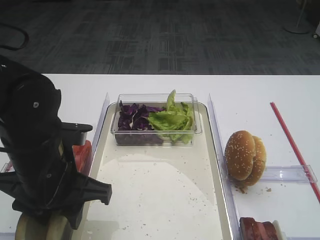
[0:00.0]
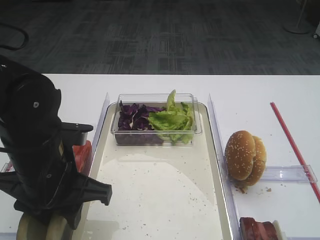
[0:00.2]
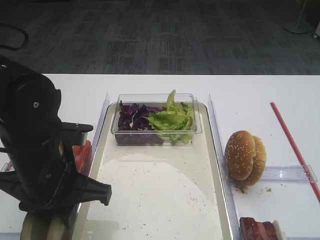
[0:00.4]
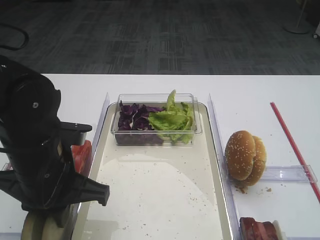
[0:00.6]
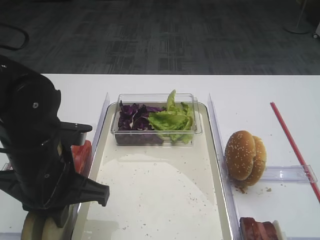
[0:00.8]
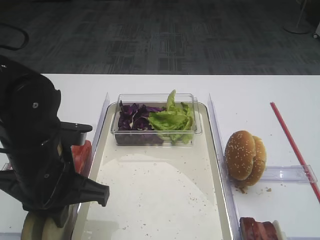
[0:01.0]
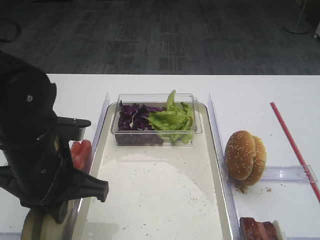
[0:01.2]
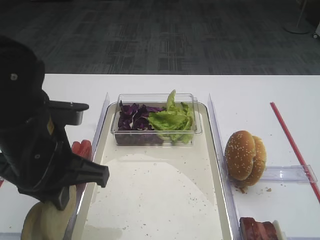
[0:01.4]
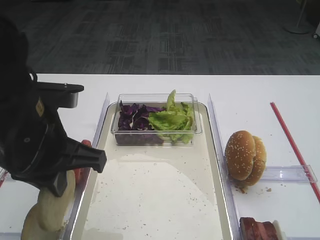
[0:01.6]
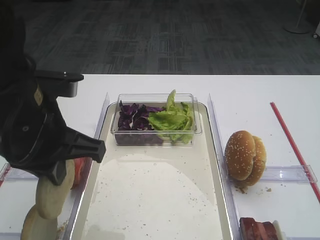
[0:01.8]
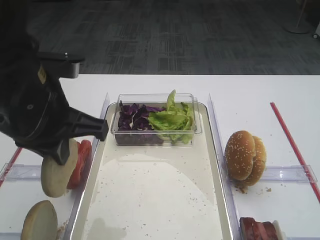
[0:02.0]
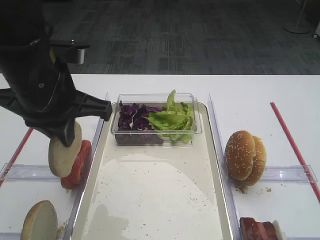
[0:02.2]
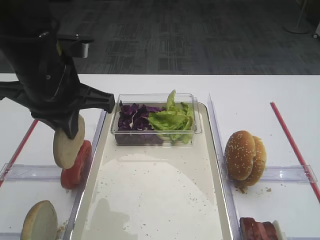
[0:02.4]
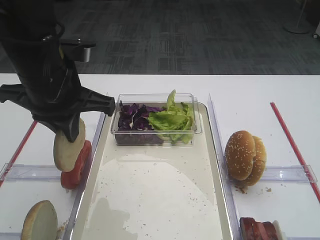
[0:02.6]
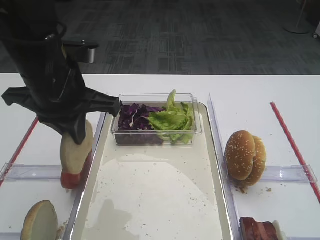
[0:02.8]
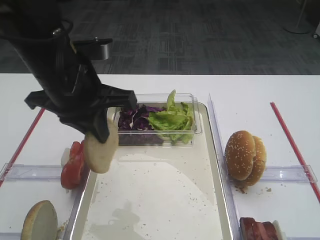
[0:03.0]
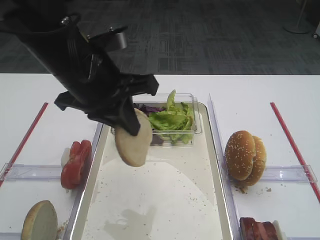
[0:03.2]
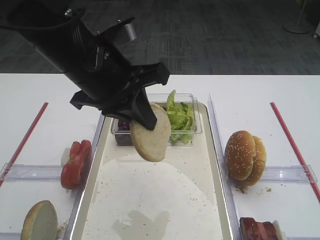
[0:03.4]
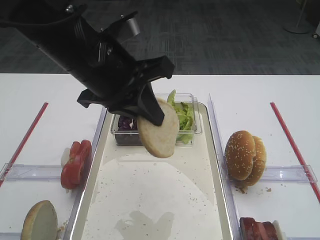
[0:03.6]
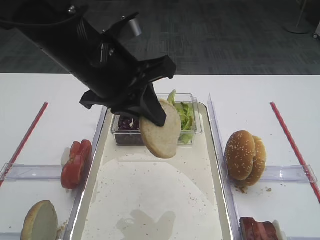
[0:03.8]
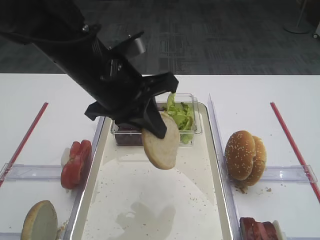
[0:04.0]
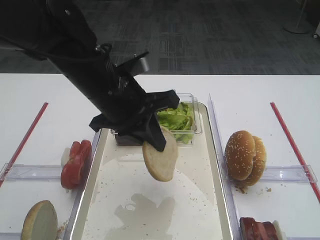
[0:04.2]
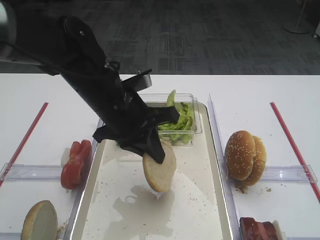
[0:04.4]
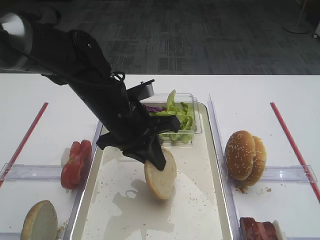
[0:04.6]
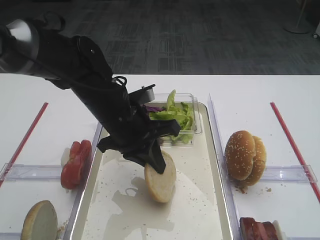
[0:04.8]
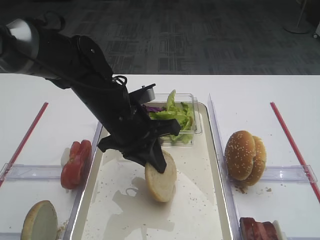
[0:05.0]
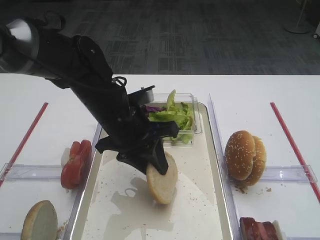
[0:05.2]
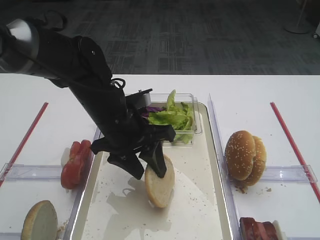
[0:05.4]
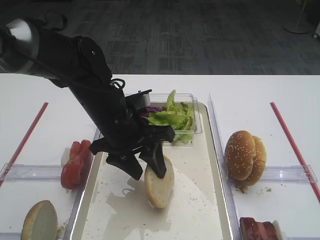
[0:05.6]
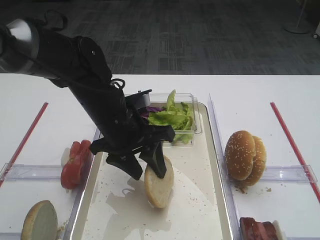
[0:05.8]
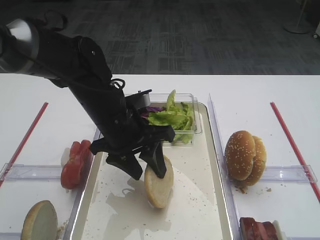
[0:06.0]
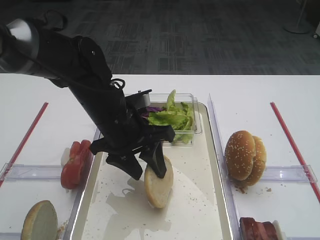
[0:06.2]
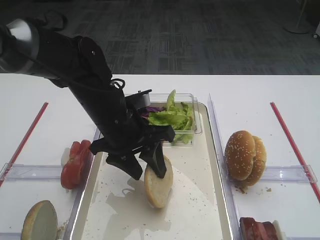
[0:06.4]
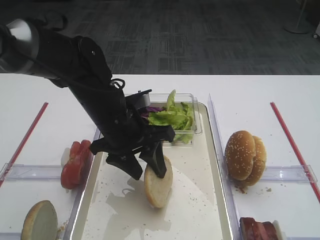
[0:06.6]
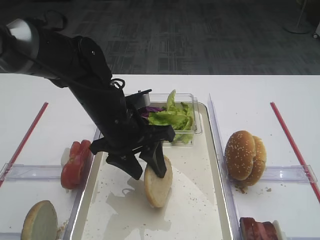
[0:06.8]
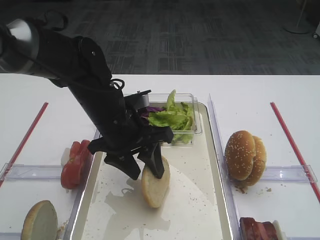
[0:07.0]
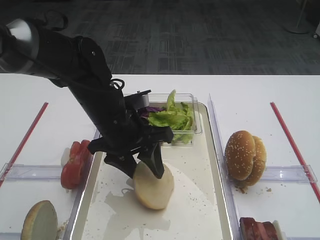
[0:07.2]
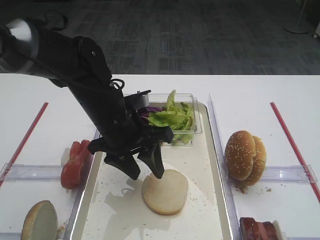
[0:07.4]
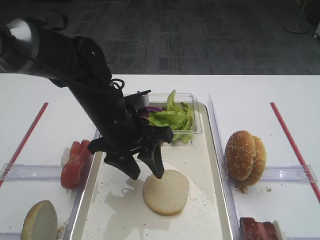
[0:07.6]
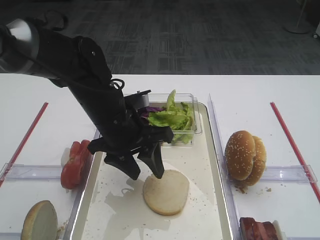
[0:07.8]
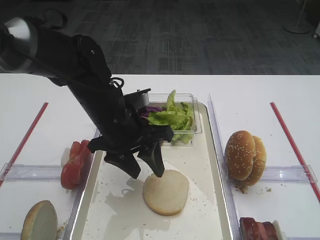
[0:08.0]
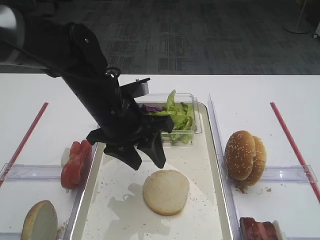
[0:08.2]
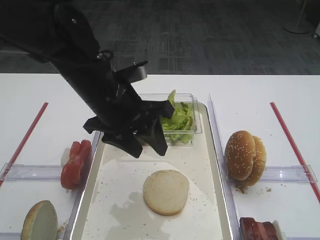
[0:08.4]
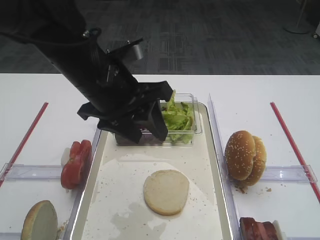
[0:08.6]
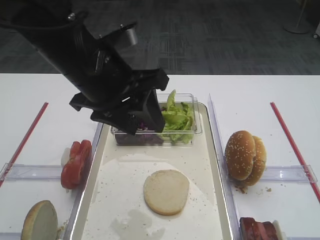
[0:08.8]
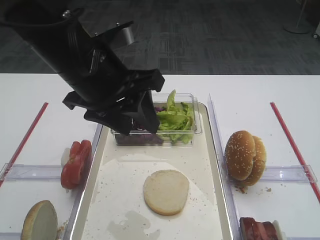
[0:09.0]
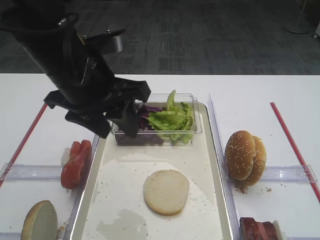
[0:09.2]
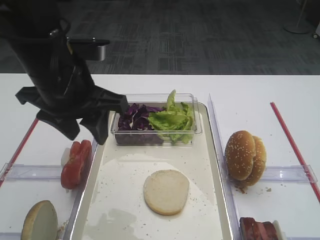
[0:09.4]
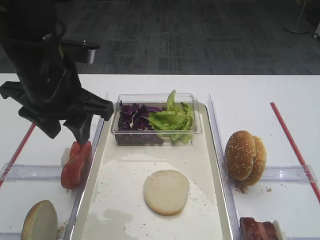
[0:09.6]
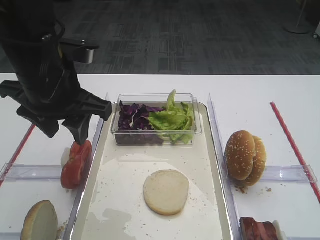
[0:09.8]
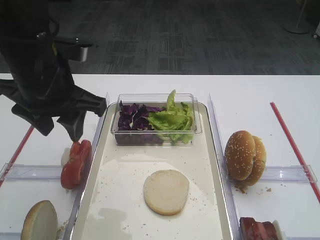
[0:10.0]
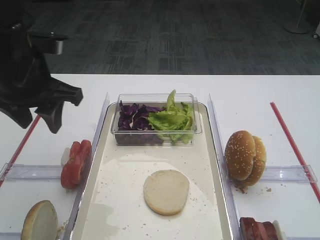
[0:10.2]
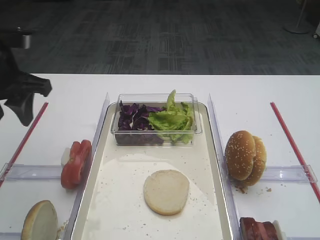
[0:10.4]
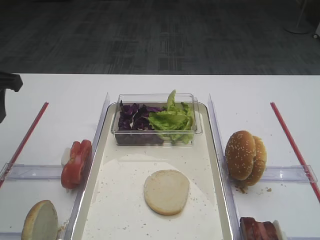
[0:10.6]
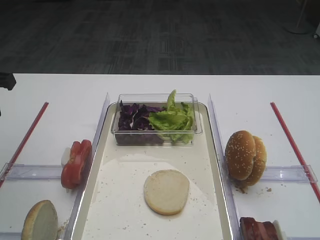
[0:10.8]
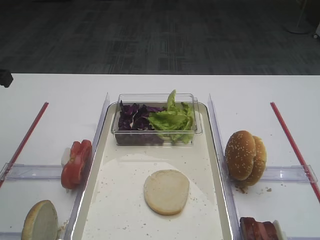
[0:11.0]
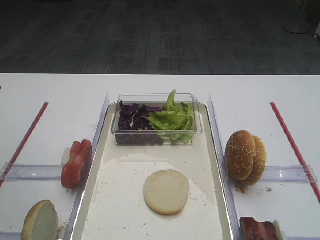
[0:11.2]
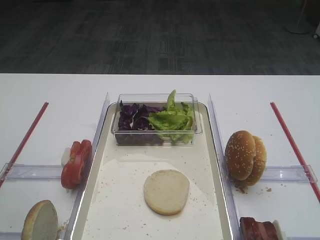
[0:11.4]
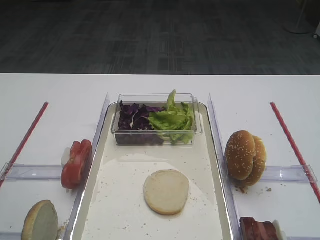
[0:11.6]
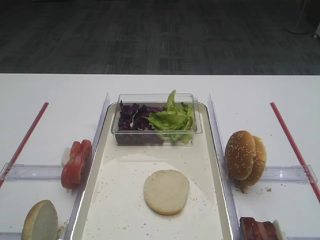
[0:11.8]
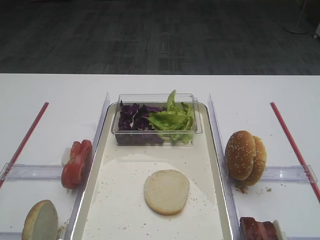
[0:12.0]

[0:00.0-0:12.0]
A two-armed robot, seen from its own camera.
Step, 0:01.8 to 0:07.8: Place the bread slice on the tray with the left gripper.
0:00.0 to 0:01.6: The left gripper goes about 5 cm upward, and closes up.
0:01.6 to 0:03.0: The left gripper travels forward by approximately 5 cm.
0:03.0 to 0:04.4: The left gripper goes approximately 10 cm downward and to the right.
0:04.4 to 0:06.0: The left gripper opens up.
0:06.0 to 0:07.6: Both grippers stay put.
0:07.6 to 0:09.0: The left gripper goes some 10 cm upward.
0:09.0 to 0:10.4: The left gripper travels to the left by some 15 cm.
0:10.4 to 0:12.0: The left gripper goes about 20 cm backward.

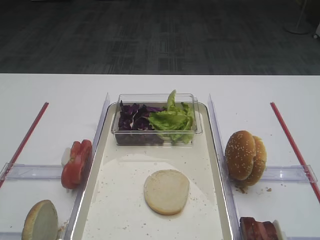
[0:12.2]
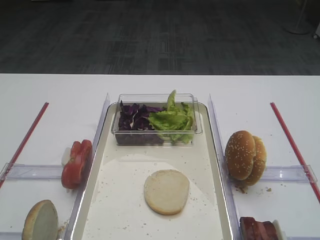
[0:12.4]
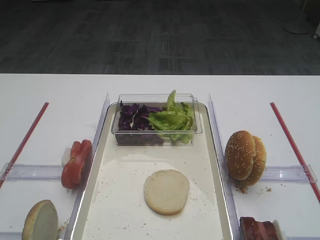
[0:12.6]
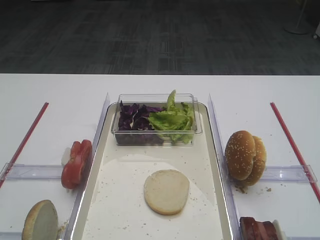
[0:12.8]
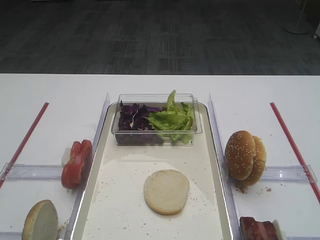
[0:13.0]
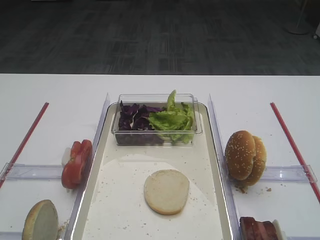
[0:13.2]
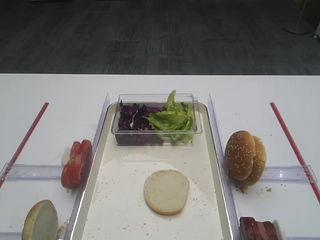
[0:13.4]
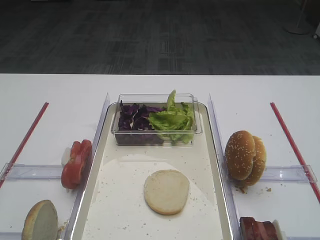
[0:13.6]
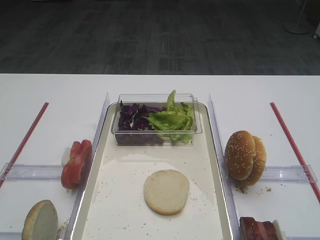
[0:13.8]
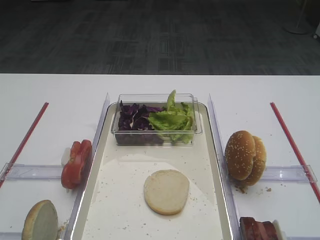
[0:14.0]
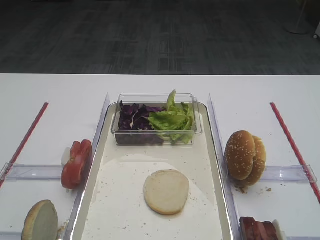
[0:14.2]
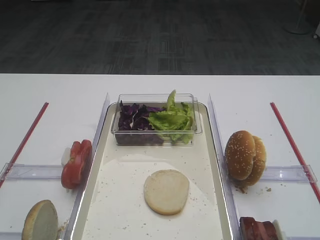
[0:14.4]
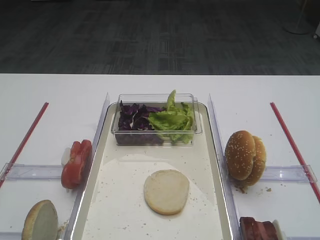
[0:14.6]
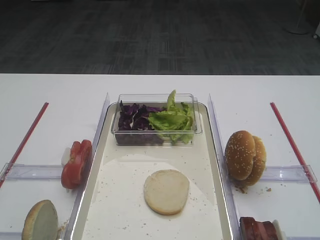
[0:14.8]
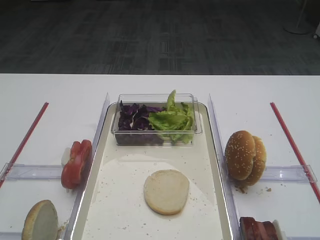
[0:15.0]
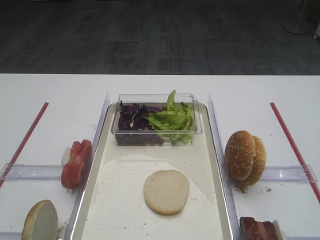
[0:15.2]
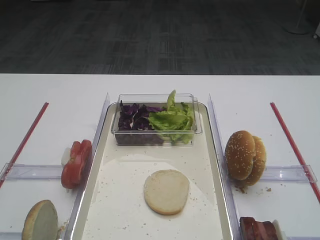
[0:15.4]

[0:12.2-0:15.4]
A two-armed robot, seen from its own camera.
0:13.8 to 0:15.4: Neither gripper changes place.

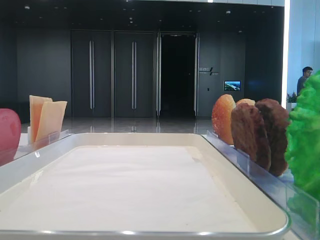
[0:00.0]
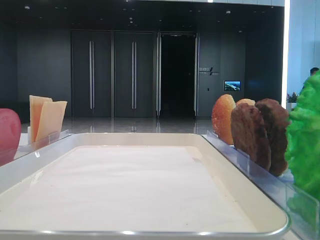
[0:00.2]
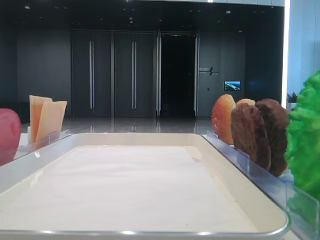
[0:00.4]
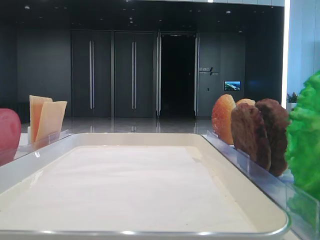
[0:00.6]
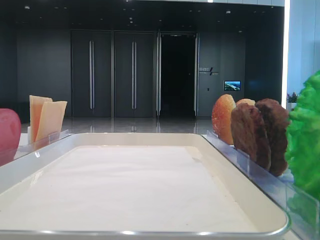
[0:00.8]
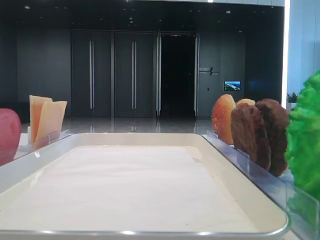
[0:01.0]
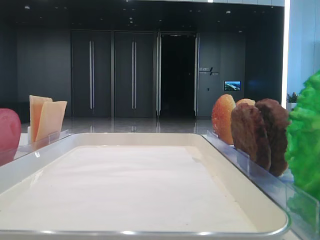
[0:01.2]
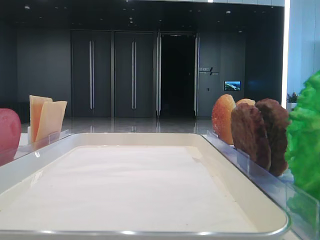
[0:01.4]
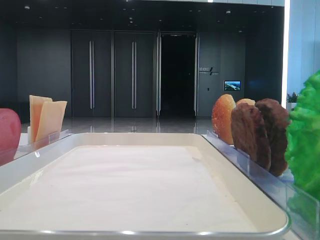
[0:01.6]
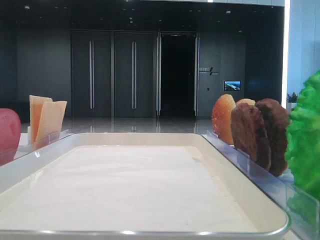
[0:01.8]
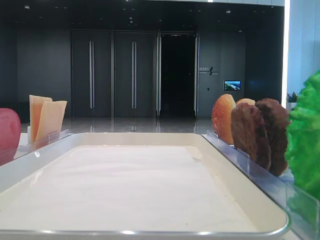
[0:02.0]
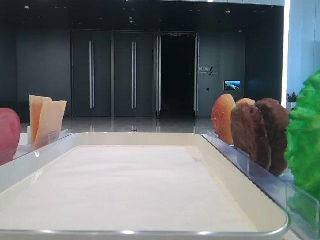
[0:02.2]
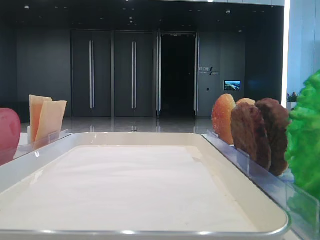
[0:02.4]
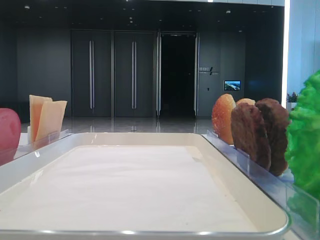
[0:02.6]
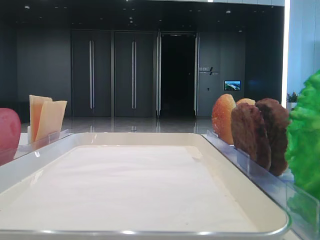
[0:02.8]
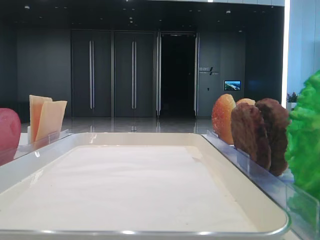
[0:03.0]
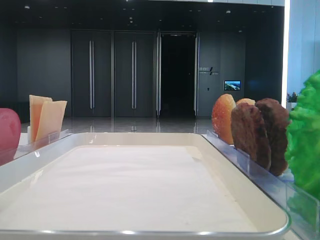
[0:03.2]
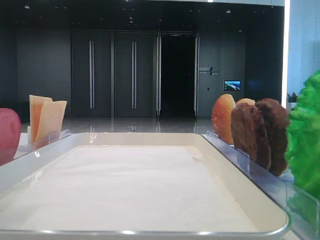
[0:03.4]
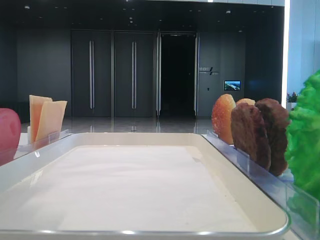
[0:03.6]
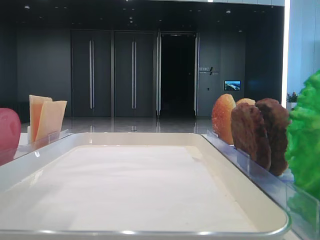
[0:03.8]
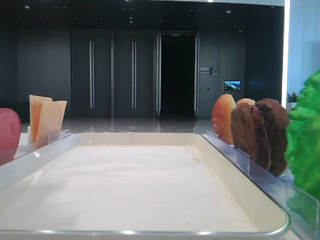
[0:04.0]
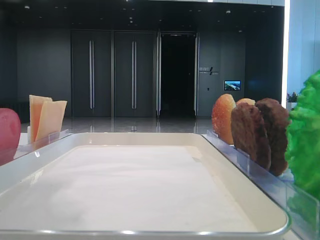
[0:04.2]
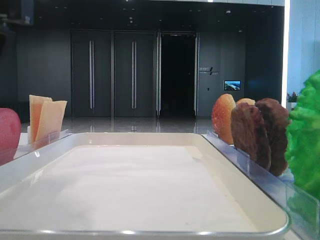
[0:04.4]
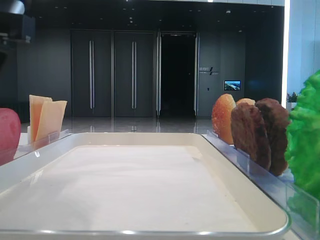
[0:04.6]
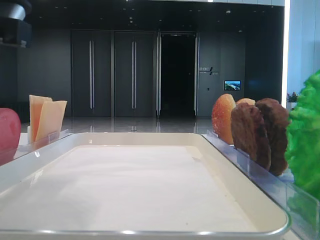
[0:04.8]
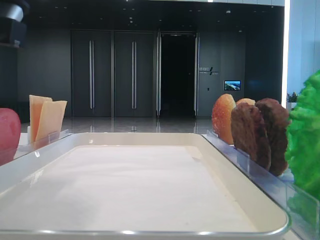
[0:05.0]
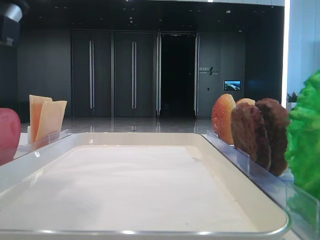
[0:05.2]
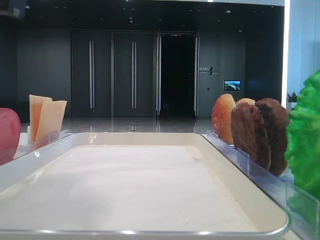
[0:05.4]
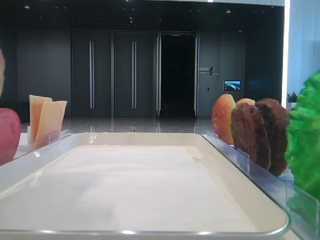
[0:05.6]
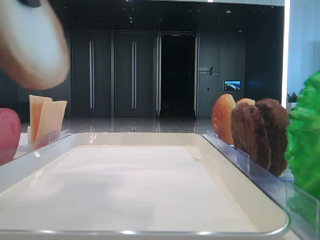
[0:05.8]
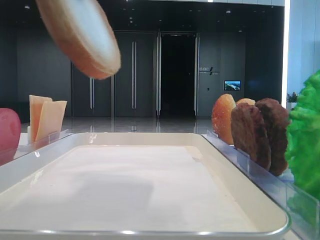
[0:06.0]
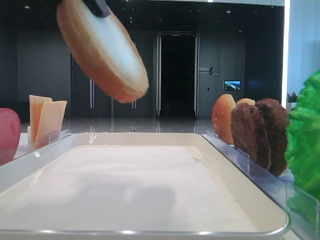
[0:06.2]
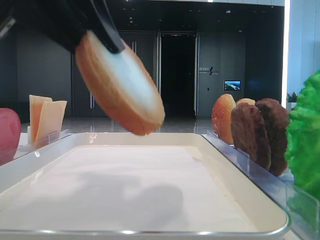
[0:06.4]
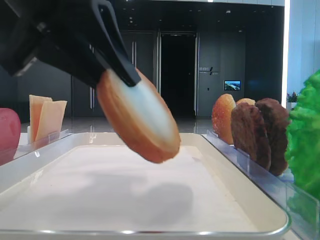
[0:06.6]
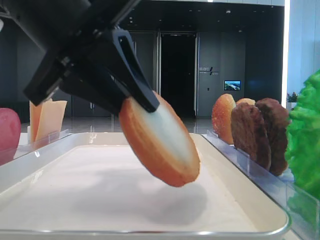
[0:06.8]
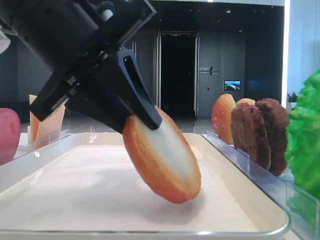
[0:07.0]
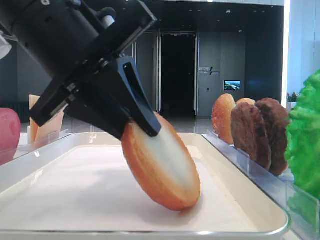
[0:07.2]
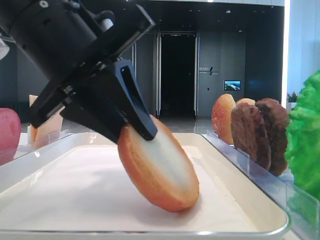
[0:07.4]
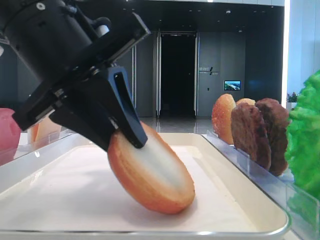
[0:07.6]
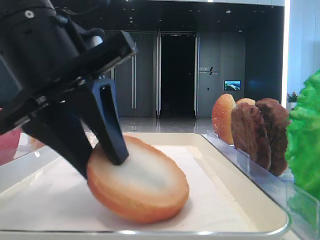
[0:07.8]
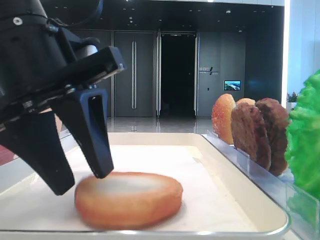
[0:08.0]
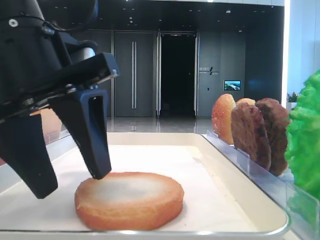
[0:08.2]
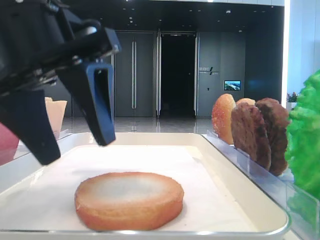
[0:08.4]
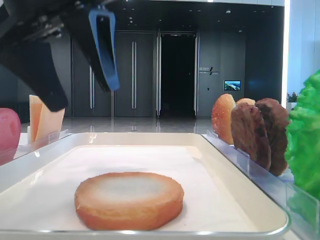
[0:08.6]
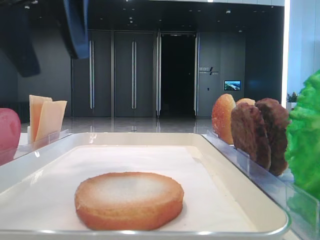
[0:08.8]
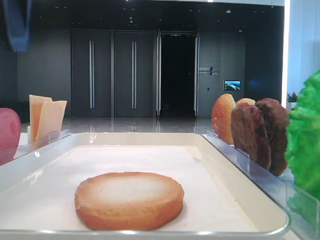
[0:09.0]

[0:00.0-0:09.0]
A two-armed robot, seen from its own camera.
Step, 0:03.6 to 0:07.8: Place the bread on the tray with the left hand.
0:03.0 to 0:04.4: The left gripper travels to the right and downward by approximately 15 cm.
0:04.4 to 0:06.0: The left gripper travels upward by roughly 10 cm, and closes up.
0:06.0 to 0:07.6: The left gripper heads downward, covering about 15 cm.
0:07.6 to 0:09.0: The left gripper shifts roughly 15 cm upward and to the left, and opens.
